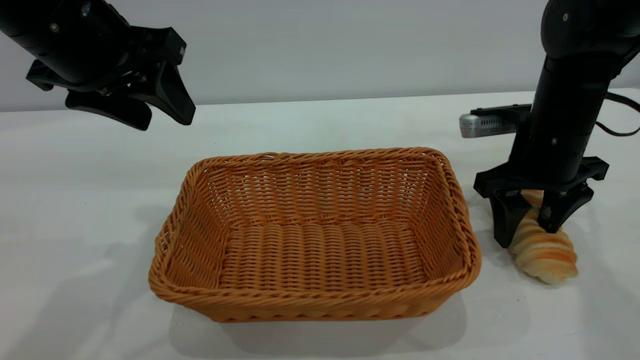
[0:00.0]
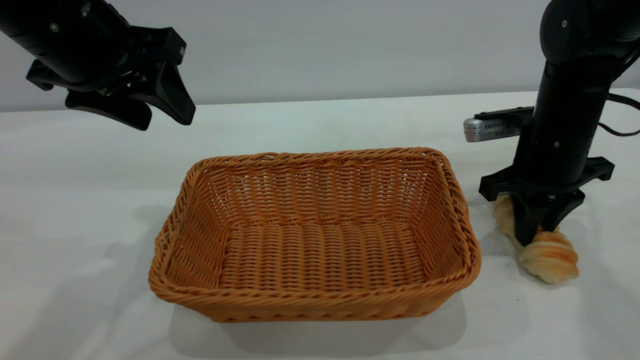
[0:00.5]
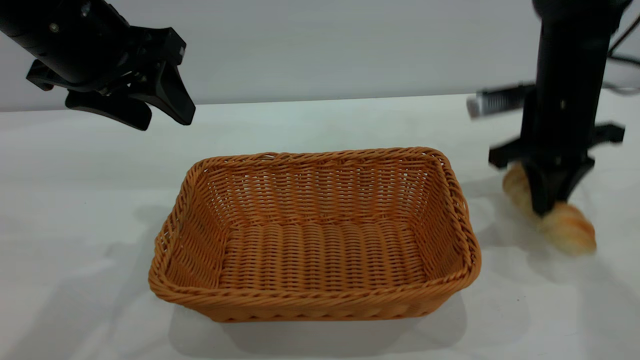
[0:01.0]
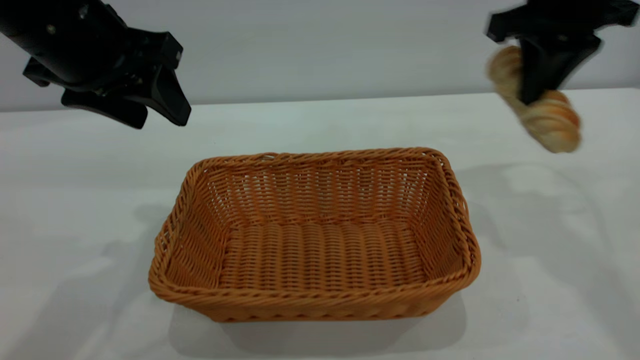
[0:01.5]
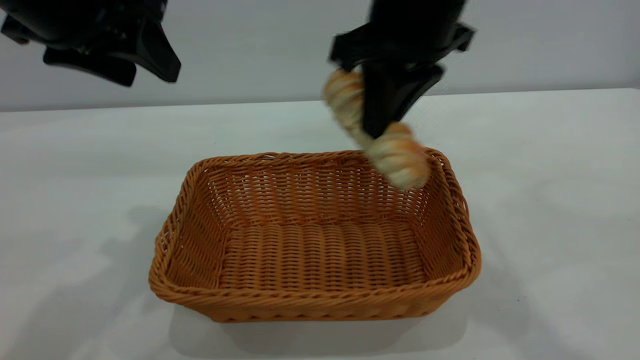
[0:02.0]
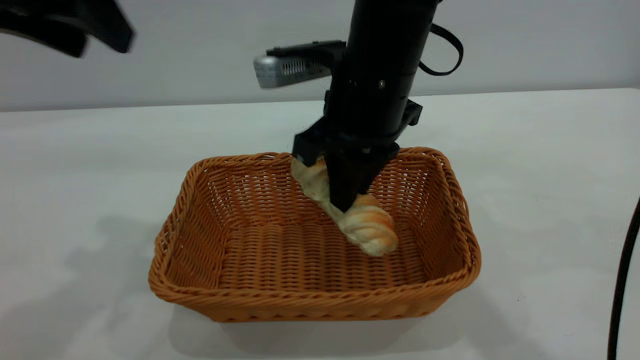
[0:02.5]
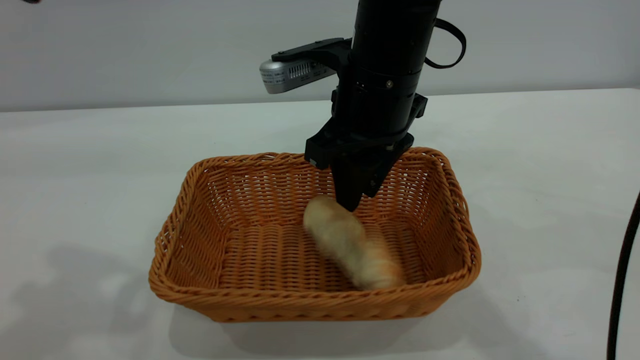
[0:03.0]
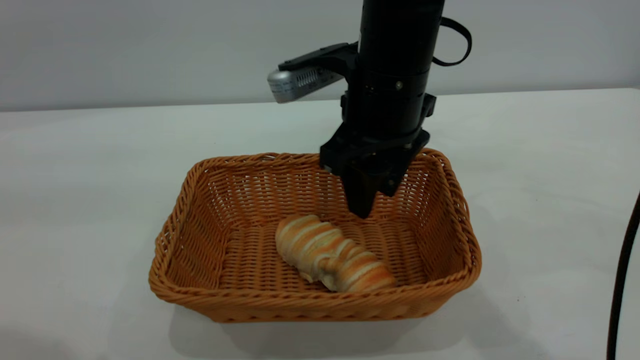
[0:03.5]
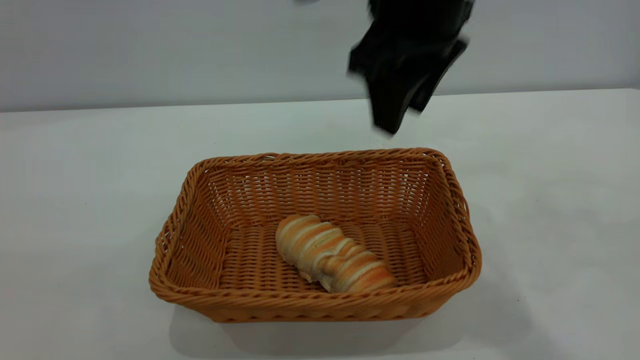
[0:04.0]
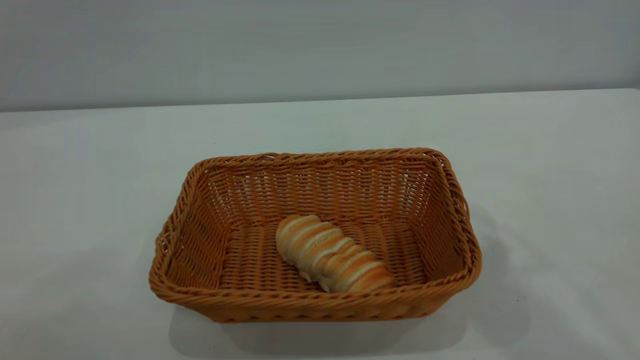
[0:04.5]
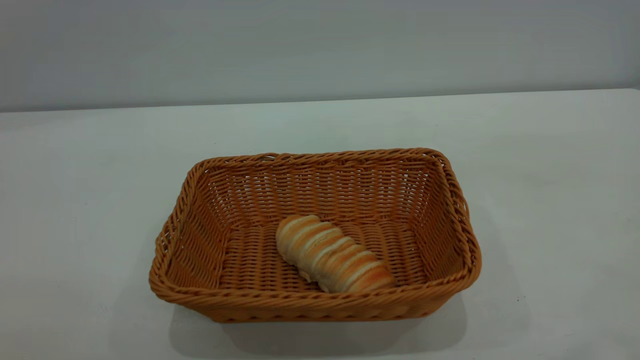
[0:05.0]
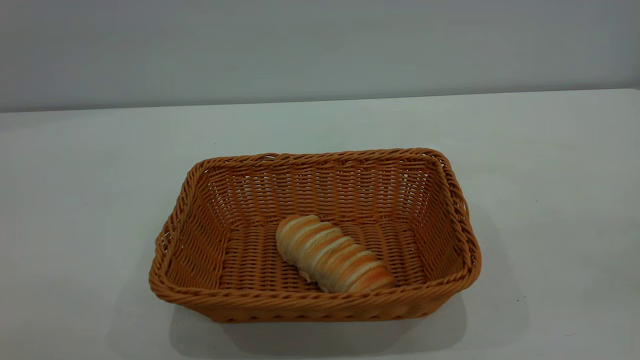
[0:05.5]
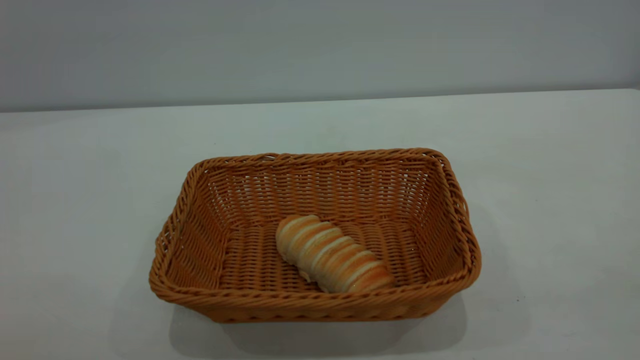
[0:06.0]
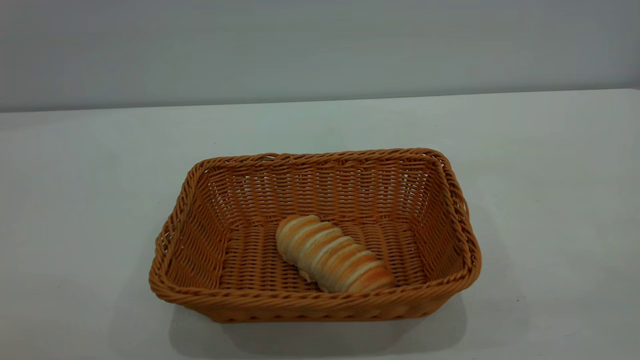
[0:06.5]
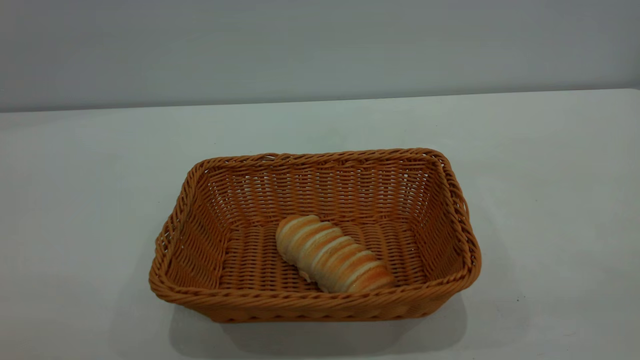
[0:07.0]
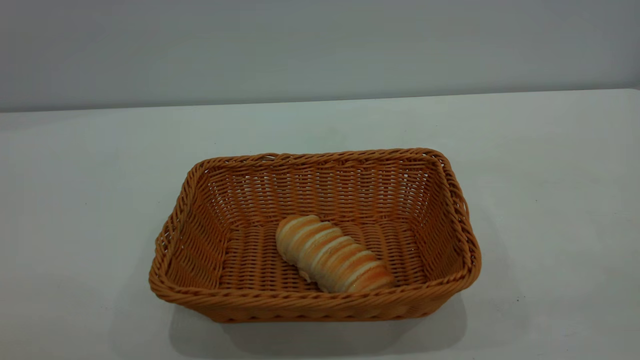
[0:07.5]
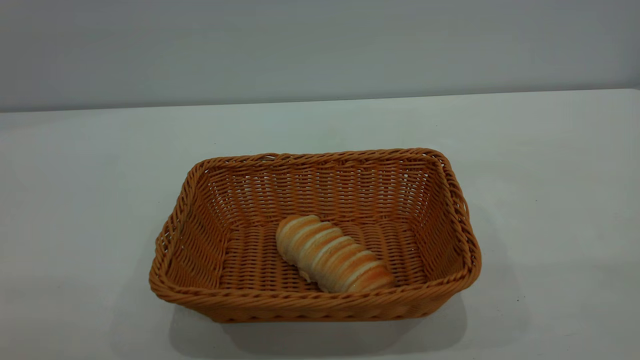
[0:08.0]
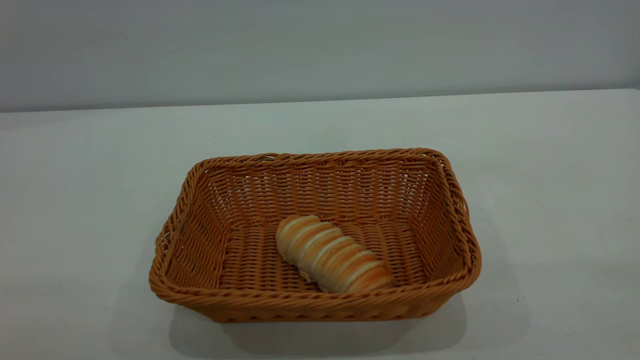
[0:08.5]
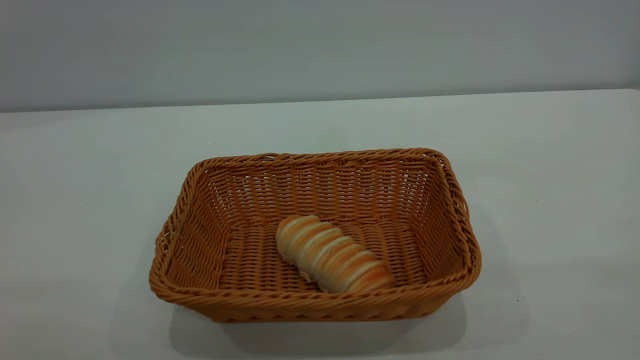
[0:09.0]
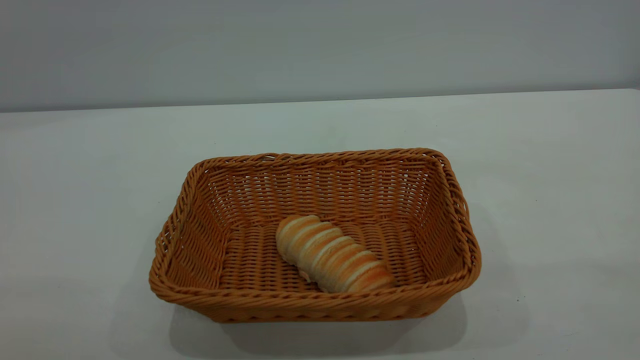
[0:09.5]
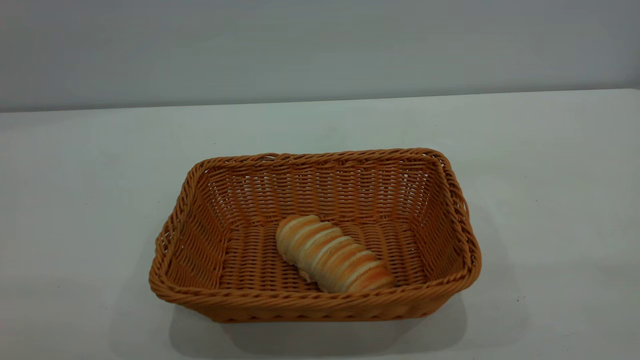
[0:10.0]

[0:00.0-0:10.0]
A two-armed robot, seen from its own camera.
Task of the whole recording: One hand grasps the yellow basket and places it in the middle of the table, while the other hand picks up the long bread and puts it into the yellow basket.
Step, 0:01.5 to 0:04.0: place the bread into the basket.
0:00.0 to 0:02.0: The right gripper heads upward and to the left, covering approximately 20 cm, and closes up.
0:02.0 to 0:04.0: The left gripper travels backward by some 30 cm. The right gripper reaches about 5 cm downward, then returns, and opens up.
0:04.0 to 0:06.0: The left gripper travels downward and backward by about 10 cm; the right gripper shifts some 40 cm backward and to the right.
0:08.0 to 0:10.0: The two grippers keep their place.
